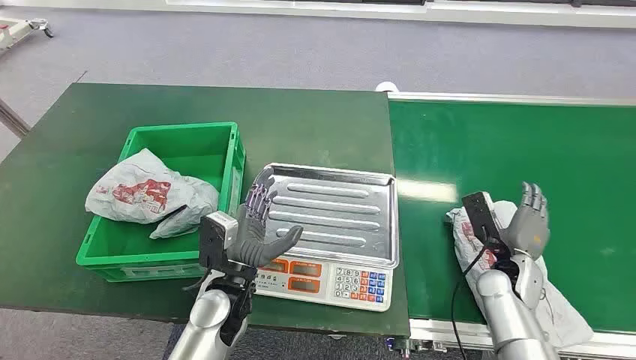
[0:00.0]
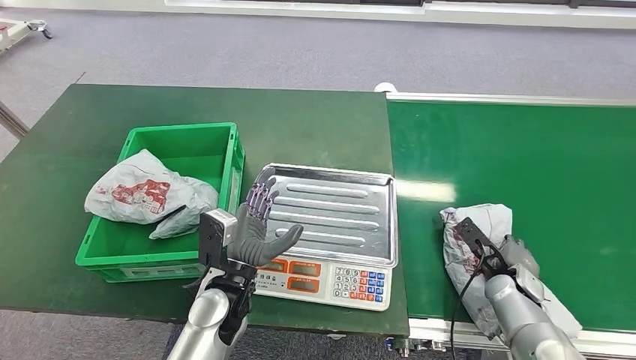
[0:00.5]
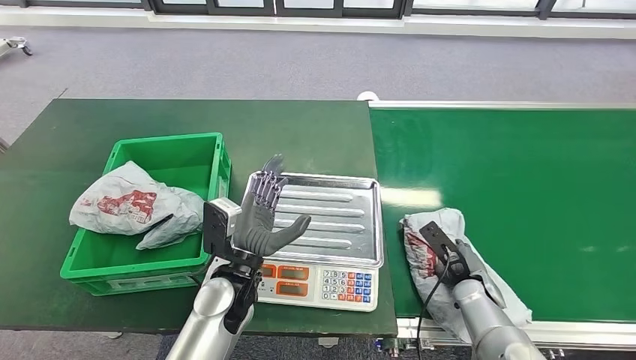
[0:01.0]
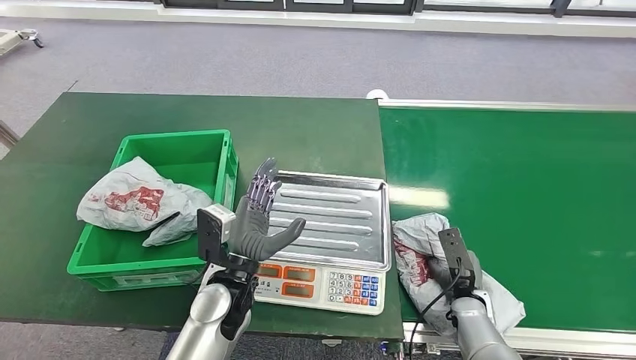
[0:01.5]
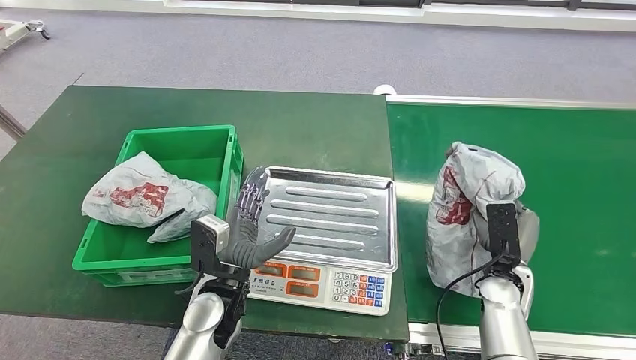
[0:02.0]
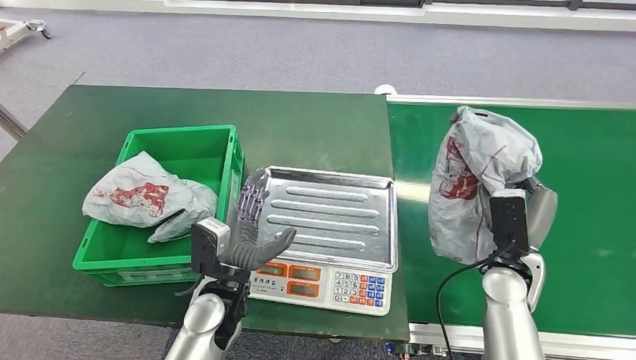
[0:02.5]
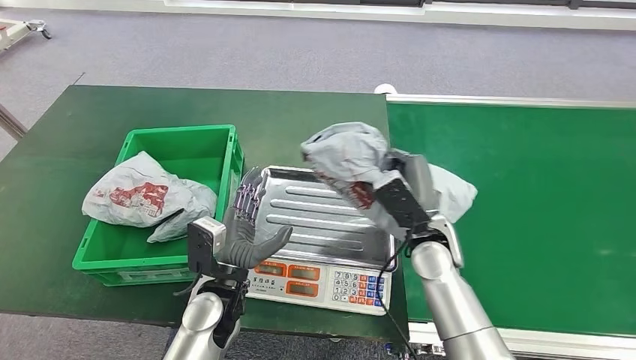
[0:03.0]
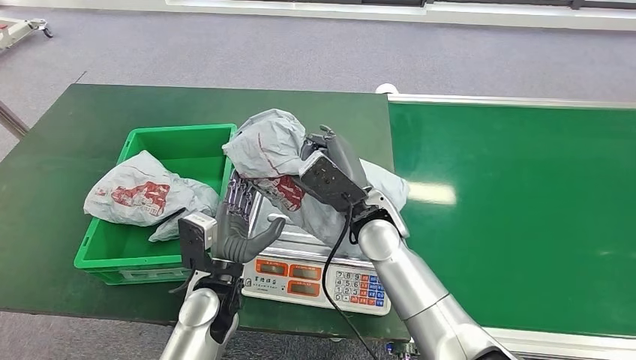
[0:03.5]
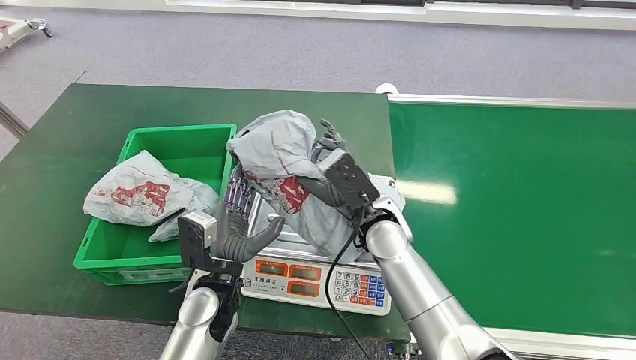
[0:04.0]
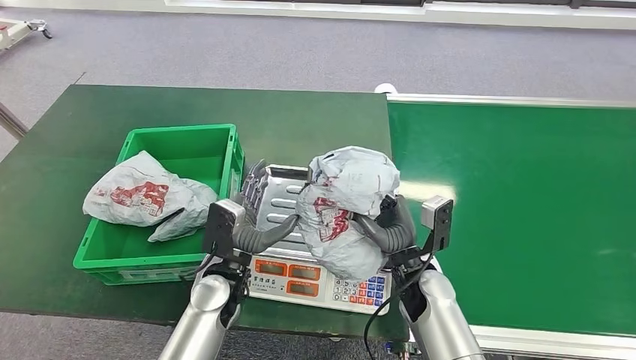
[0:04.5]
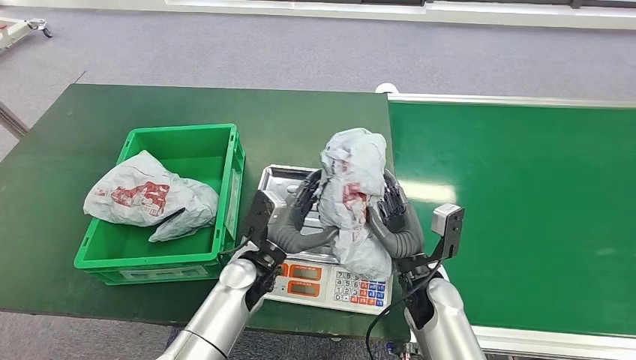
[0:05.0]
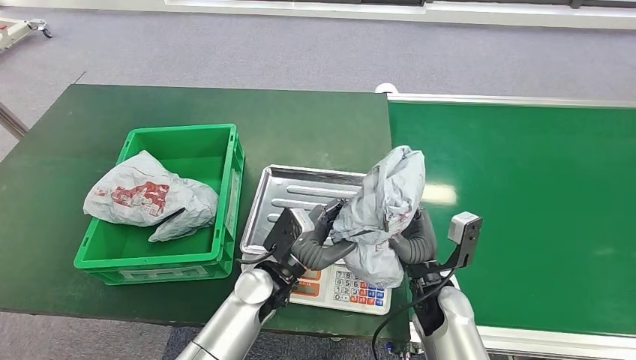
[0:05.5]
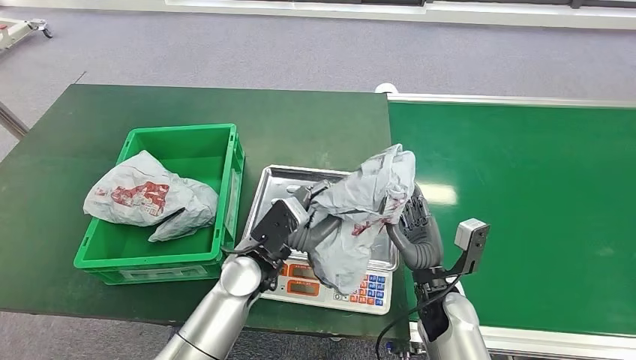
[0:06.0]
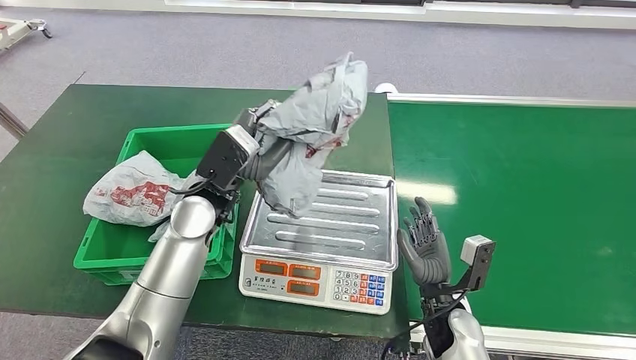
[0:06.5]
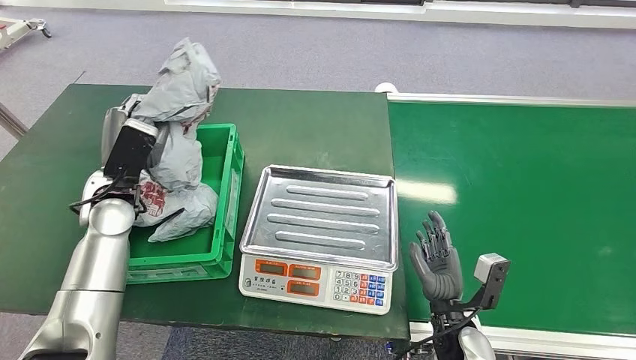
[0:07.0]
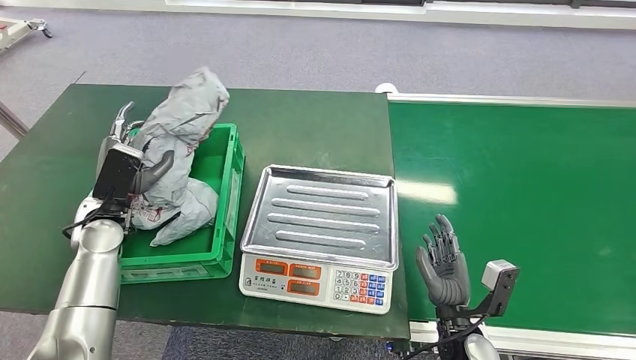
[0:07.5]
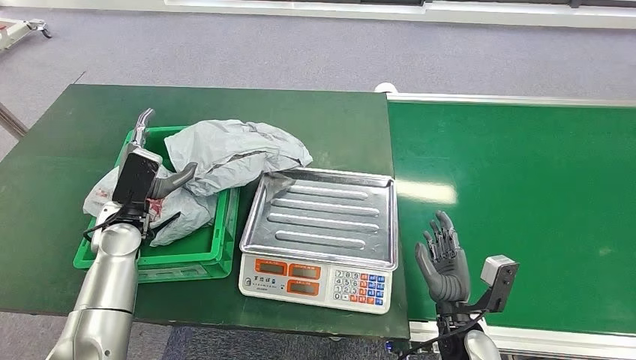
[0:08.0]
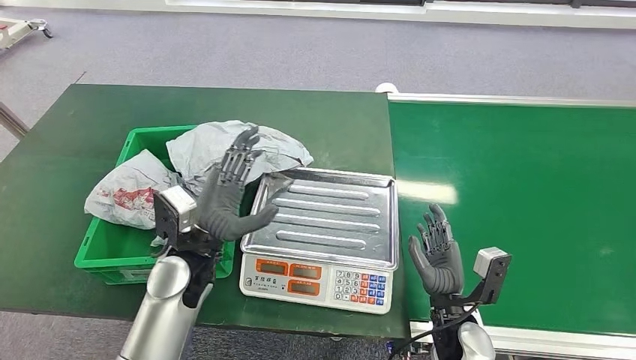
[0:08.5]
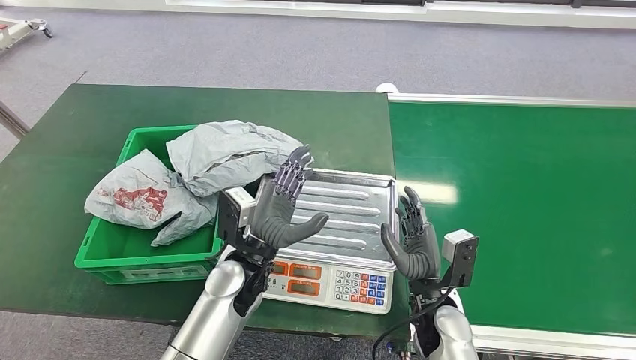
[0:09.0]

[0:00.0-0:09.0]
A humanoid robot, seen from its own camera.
Step, 0:00.0 to 0:02.5: Pick up the package from the conveyor belt.
Step, 0:03.0 to 0:05.5: Place the package onto the inbound machine.
Step, 0:06.0 to 0:07.5: Pick up the package from the inbound machine.
Step, 0:08.0 to 0:09.0: Place the package into the parcel locker.

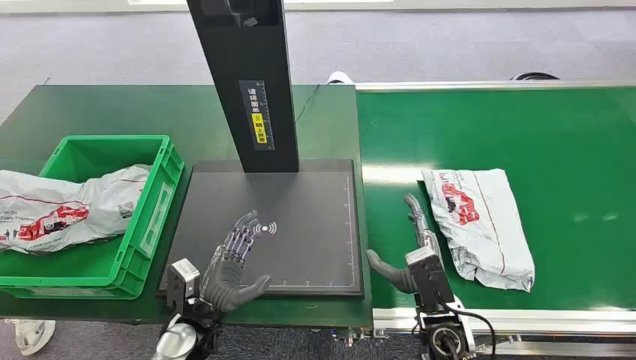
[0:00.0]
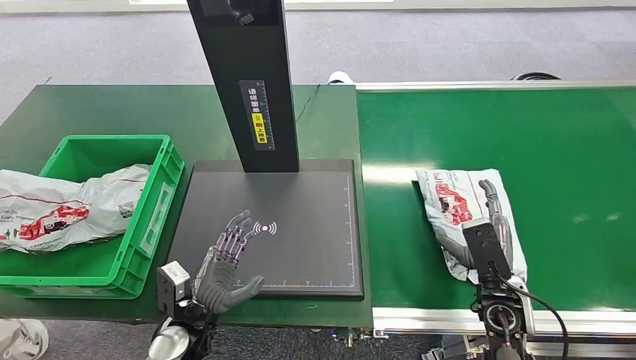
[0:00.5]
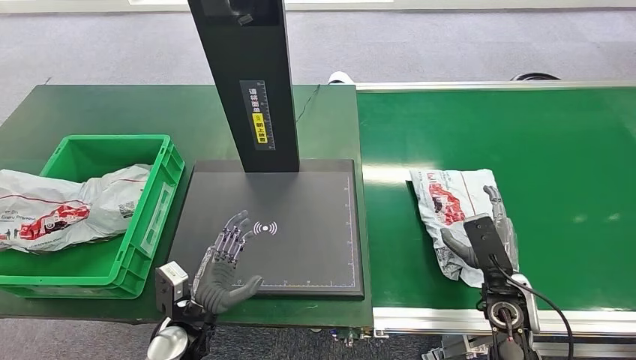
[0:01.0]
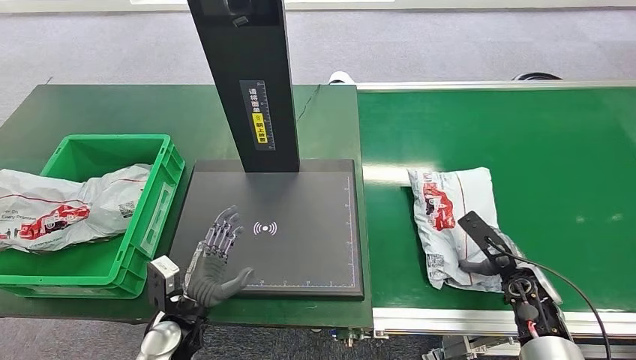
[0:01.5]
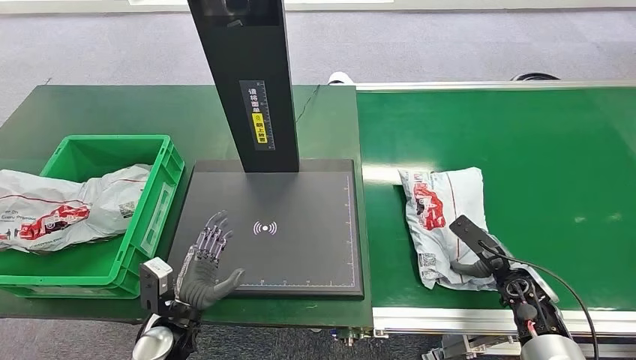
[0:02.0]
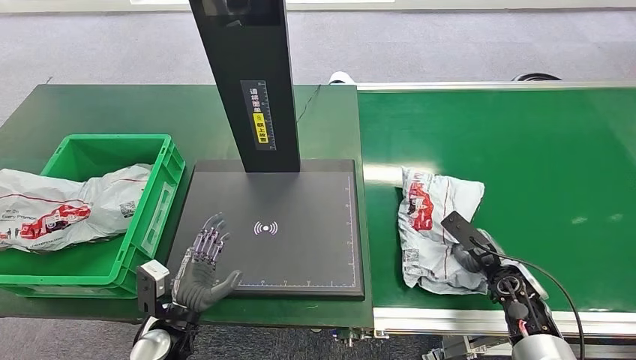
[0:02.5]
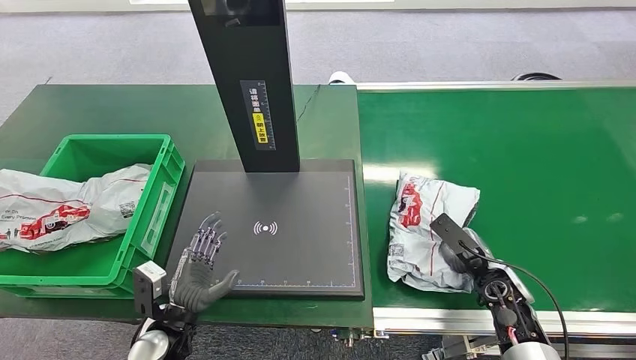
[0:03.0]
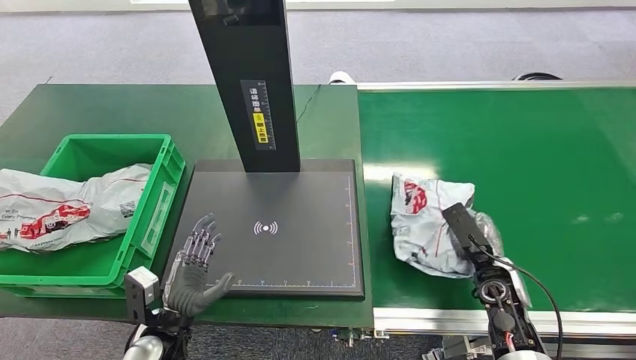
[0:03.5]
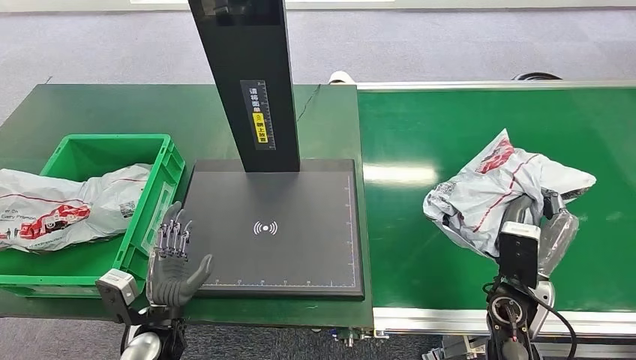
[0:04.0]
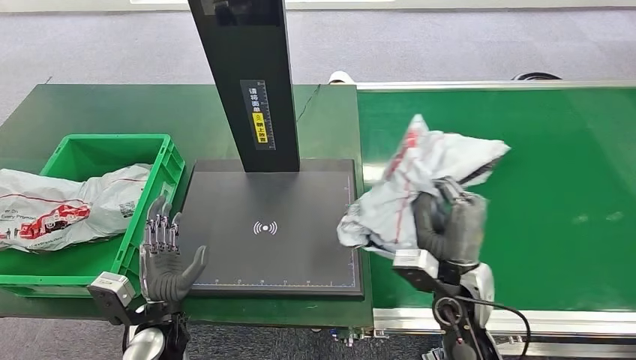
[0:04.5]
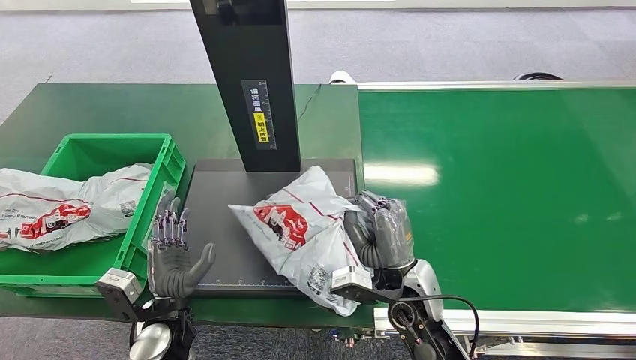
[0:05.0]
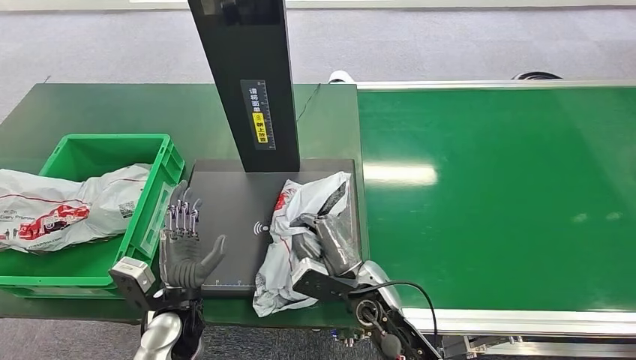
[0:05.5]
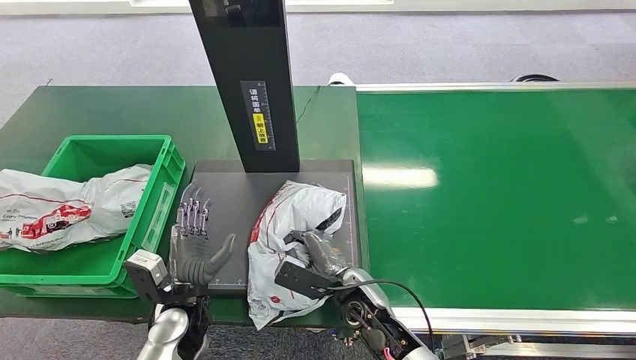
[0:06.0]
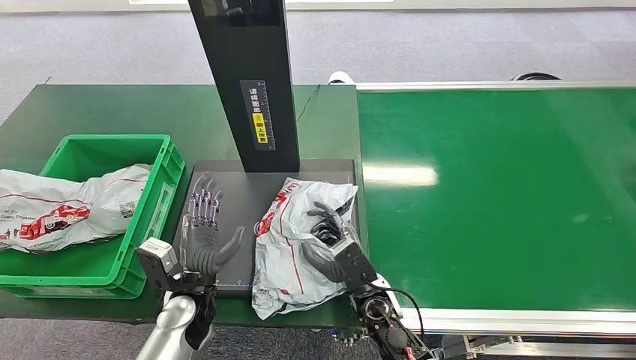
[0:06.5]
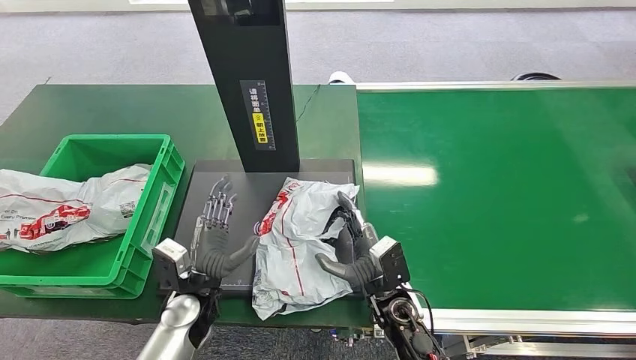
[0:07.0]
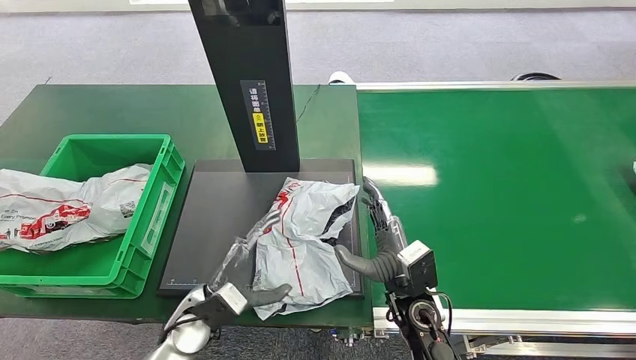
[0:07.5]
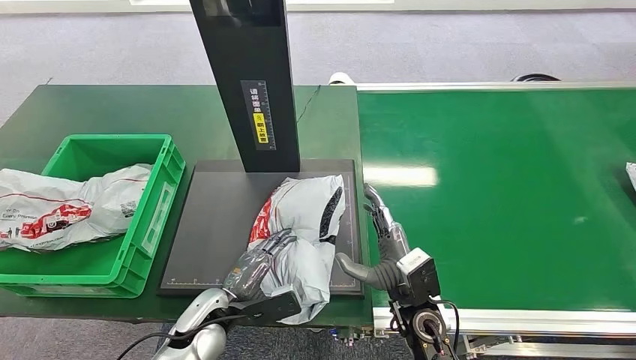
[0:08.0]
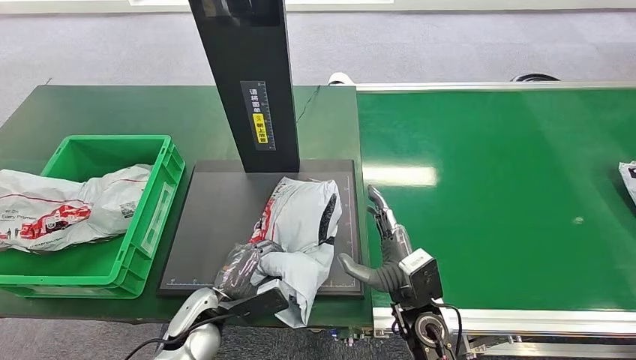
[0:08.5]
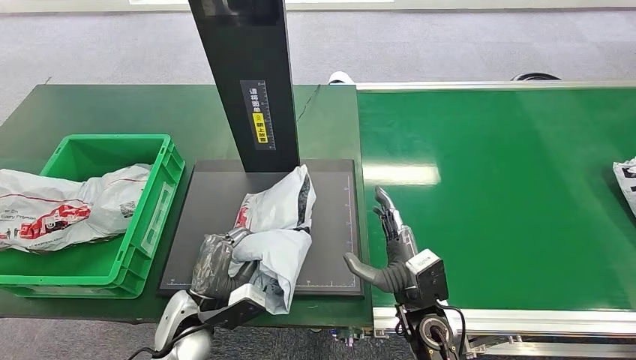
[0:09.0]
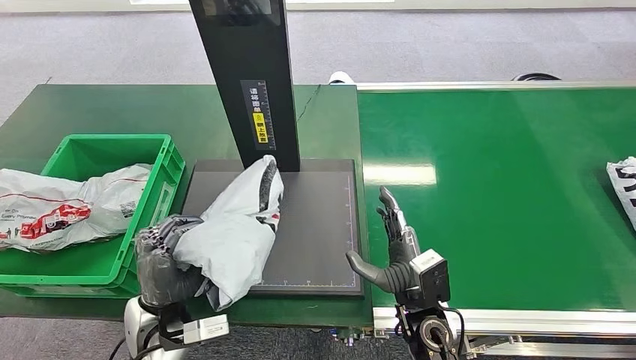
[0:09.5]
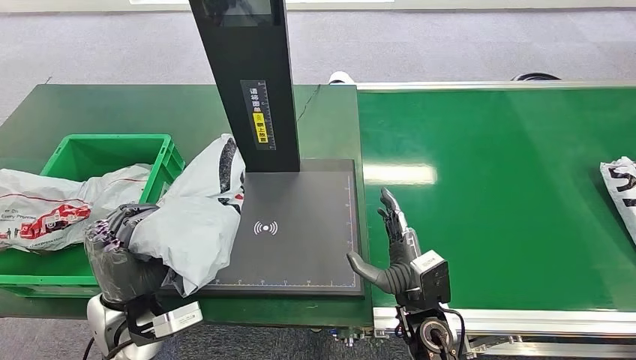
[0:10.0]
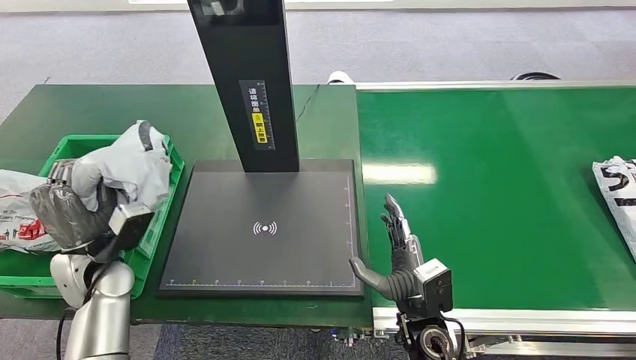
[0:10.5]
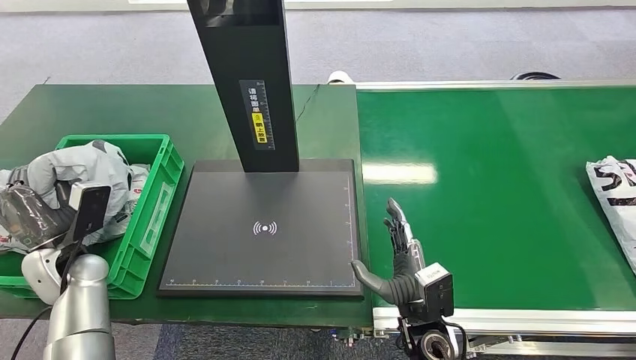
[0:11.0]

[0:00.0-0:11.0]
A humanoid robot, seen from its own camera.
Step, 0:00.0 to 0:03.5: Pick up the package from the conveyor belt.
Step, 0:04.0 to 0:06.5: Place the package onto the inbound machine.
Step, 0:07.0 to 0:09.0: Pick up the package from the inbound machine.
0:02.0 to 0:03.5: The right hand goes roughly 5 cm to the left.
0:03.5 to 0:05.5: The left hand ends up roughly 5 cm from where it was. Meanwhile the right hand goes some 25 cm to the left.
0:05.5 to 0:07.5: The right hand goes about 5 cm to the right.
